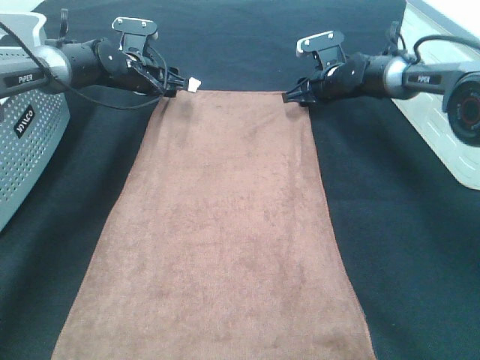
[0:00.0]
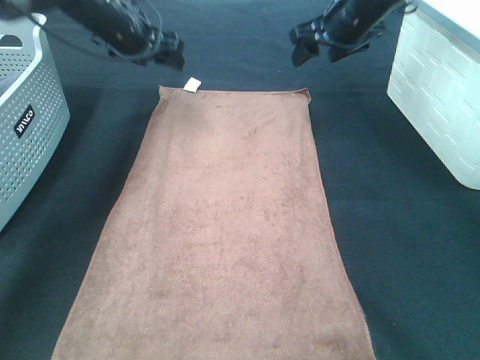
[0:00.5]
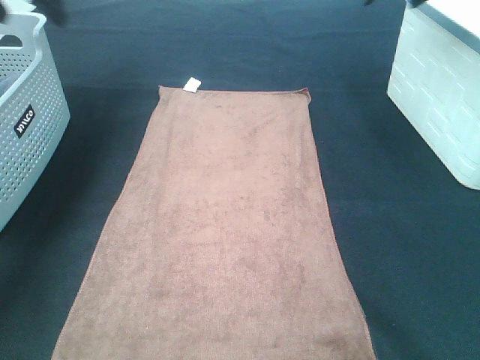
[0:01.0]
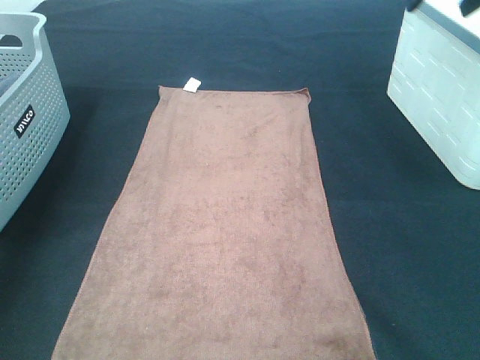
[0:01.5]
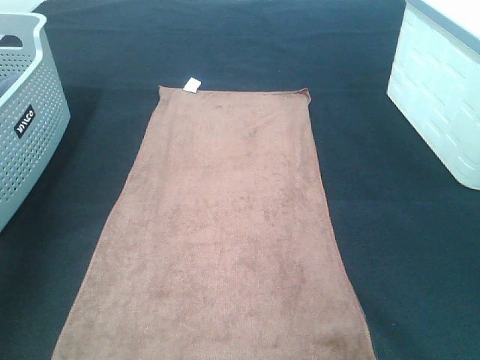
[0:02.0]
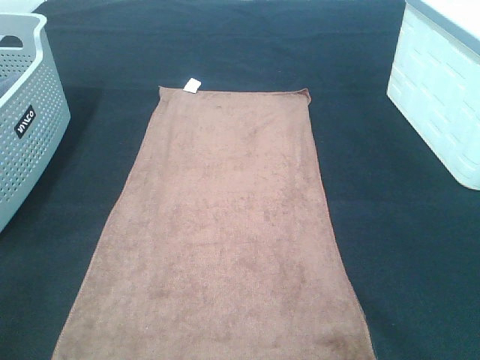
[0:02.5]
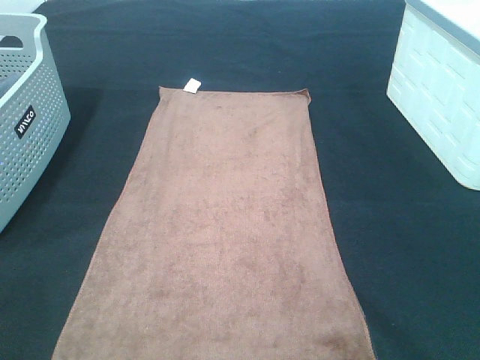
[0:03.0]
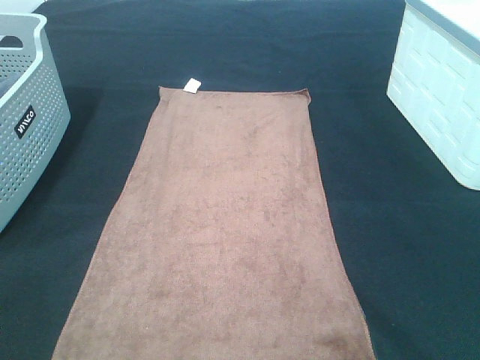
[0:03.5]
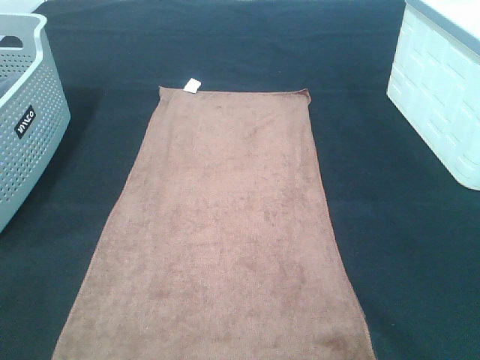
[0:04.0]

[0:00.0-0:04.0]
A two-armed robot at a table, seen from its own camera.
Task of the whole recording: Remove the towel and place it.
0:00.0 to 0:02.0: The two grippers go approximately 50 cm backward and upward.
0:02.0 to 0:04.0: The left gripper is displaced backward and downward by roughly 20 cm.

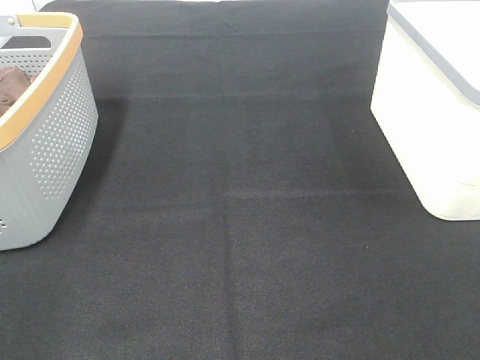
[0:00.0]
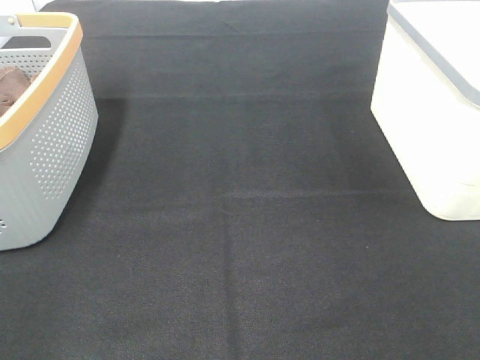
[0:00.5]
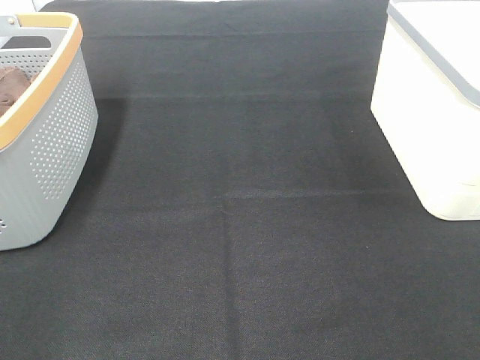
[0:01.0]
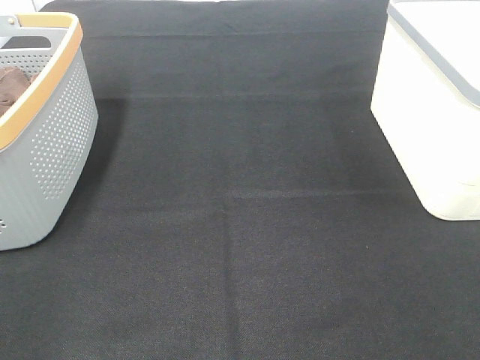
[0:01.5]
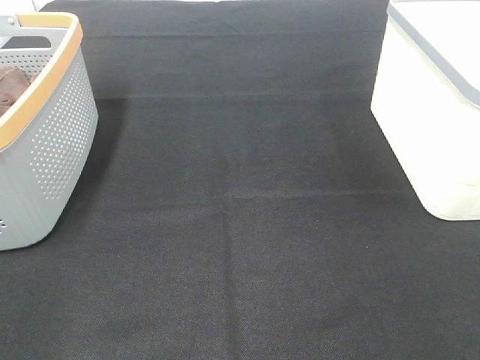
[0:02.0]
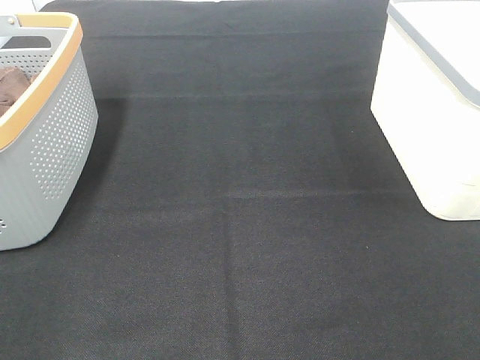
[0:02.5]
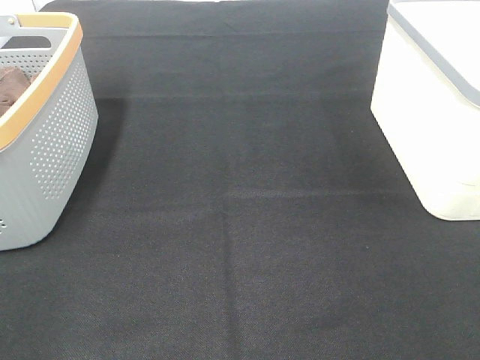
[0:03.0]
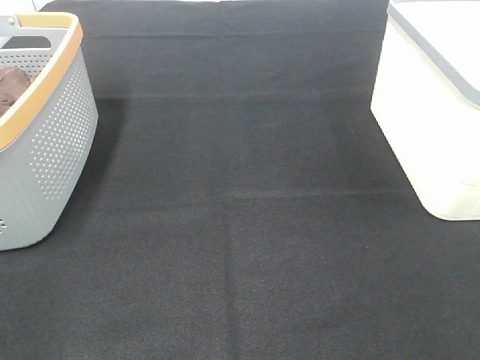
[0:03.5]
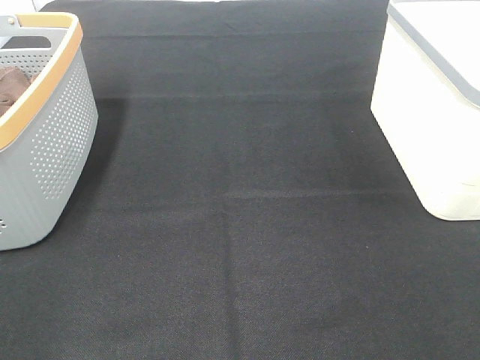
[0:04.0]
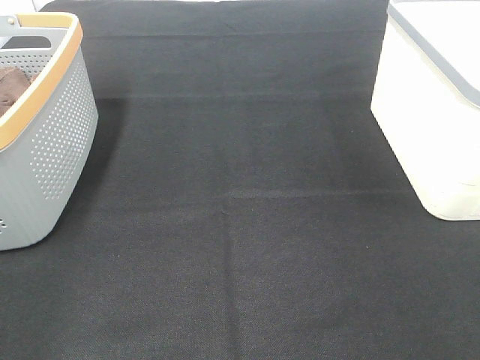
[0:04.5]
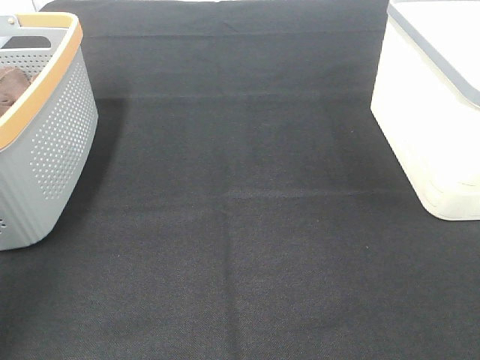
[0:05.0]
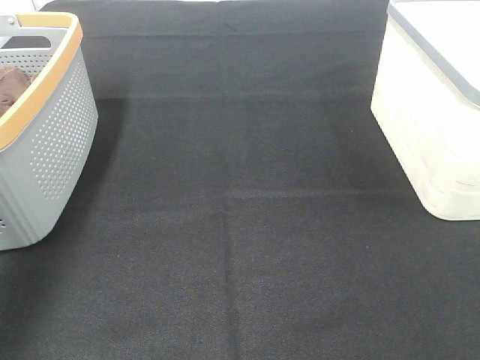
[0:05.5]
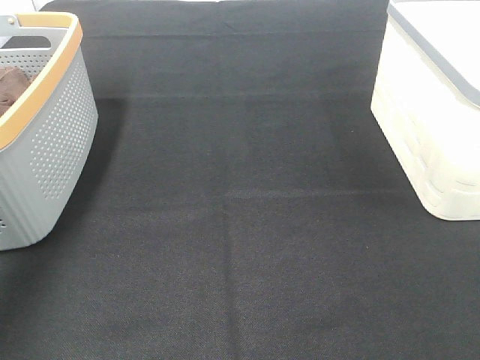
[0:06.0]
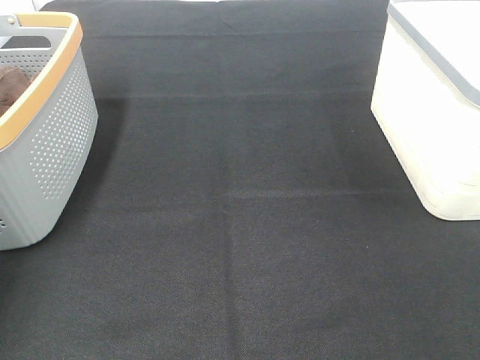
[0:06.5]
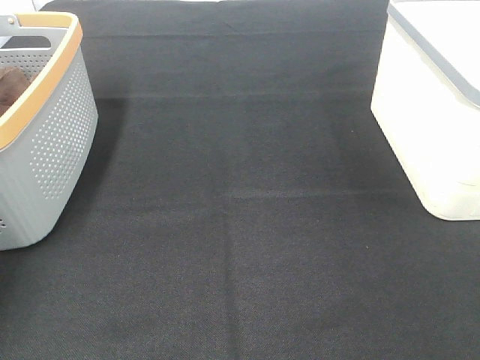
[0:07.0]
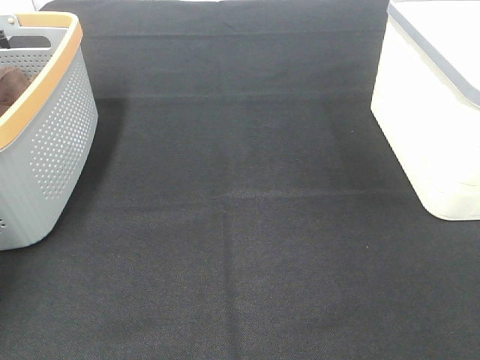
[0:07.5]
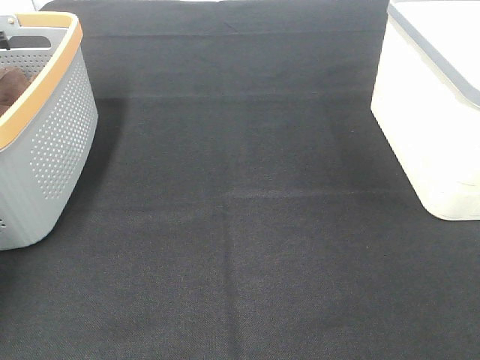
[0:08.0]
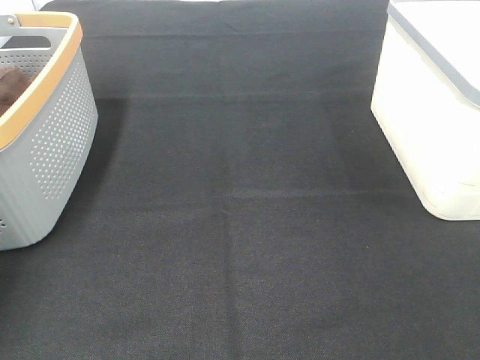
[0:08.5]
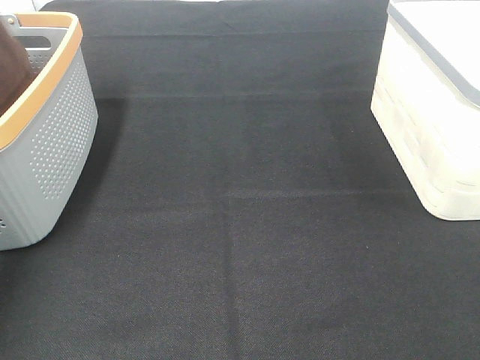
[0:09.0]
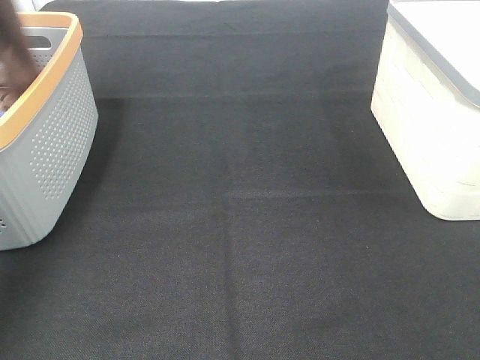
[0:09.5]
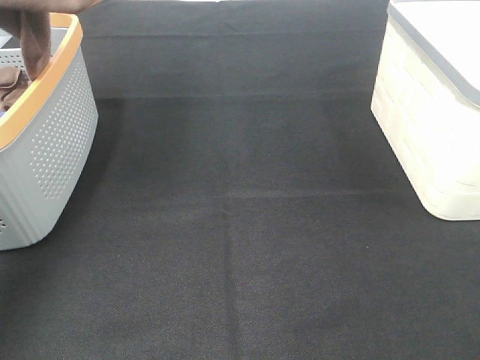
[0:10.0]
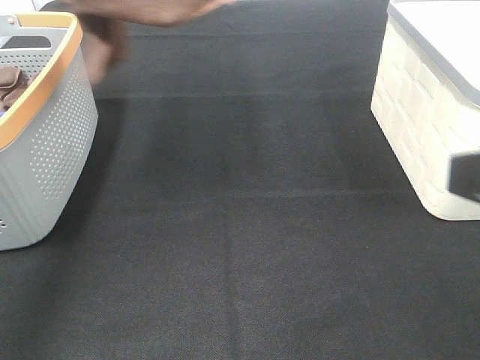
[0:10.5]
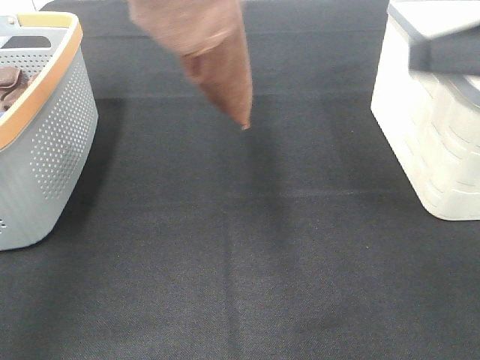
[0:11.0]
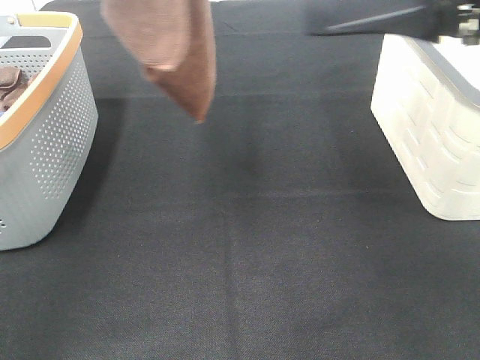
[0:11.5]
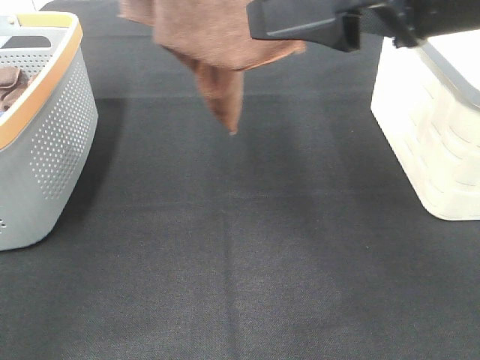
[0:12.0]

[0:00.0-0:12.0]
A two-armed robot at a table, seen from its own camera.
Task of the whole recording: Remove the towel and place it.
0:00.0 to 0:04.0: Both grippers stay about where they are.
0:04.0 to 0:06.0: The left gripper heads forward, covering approximately 40 cm.
0:06.0 to 0:08.0: The left gripper travels downward and forward by some 15 cm, and closes up.
0:08.0 to 0:10.0: The left gripper is displaced upward and backward by about 40 cm.
0:10.0 to 0:12.0: The left gripper shifts about 15 cm to the right. Meanwhile the right gripper goes about 20 cm forward and to the left.

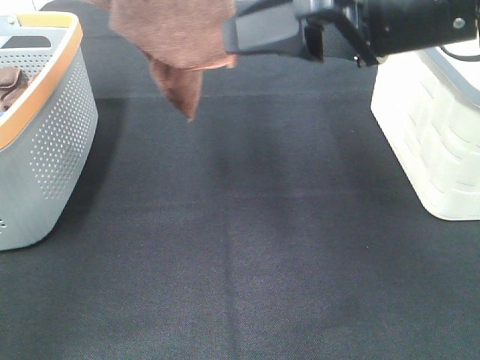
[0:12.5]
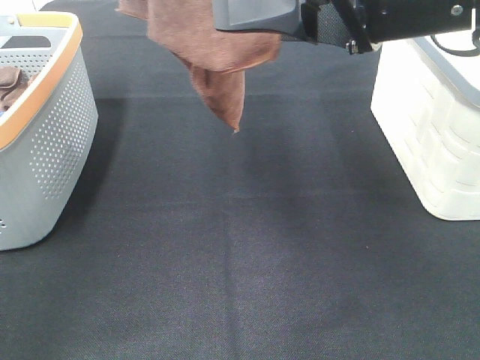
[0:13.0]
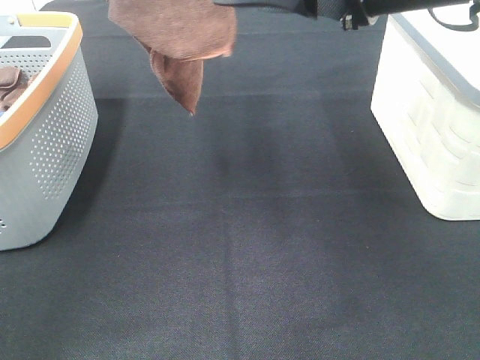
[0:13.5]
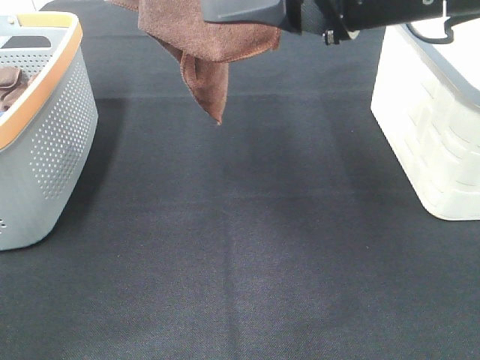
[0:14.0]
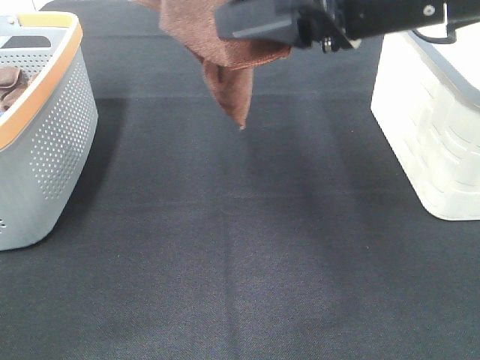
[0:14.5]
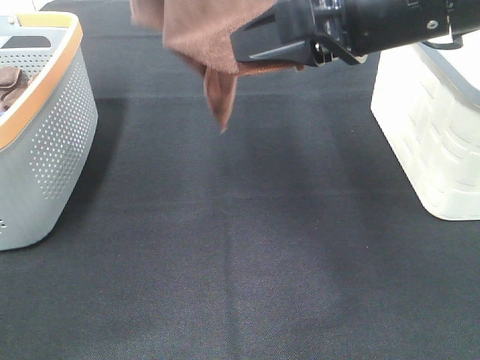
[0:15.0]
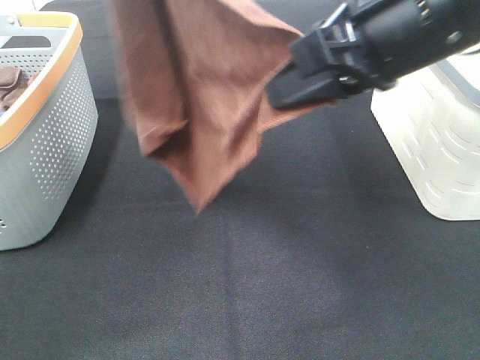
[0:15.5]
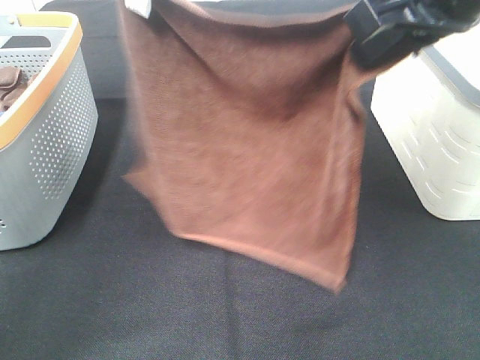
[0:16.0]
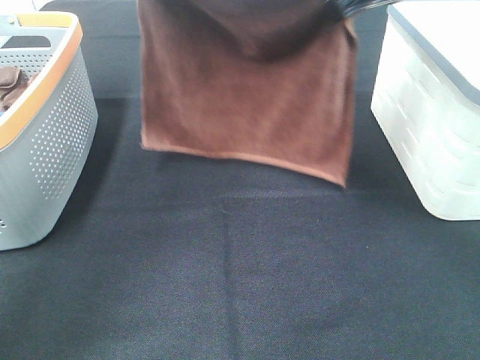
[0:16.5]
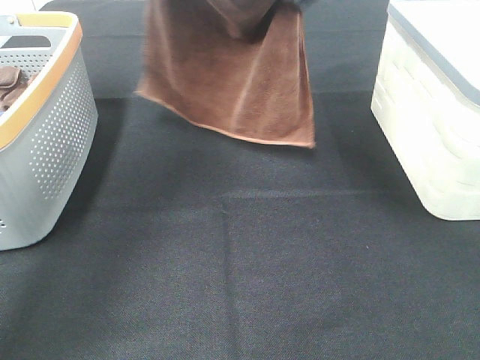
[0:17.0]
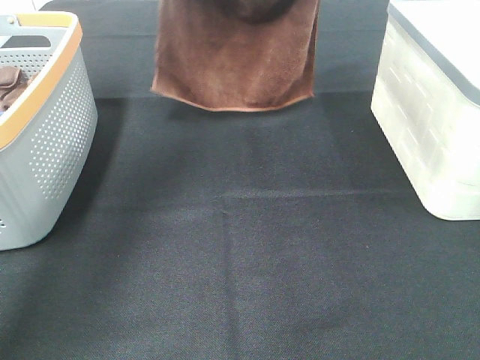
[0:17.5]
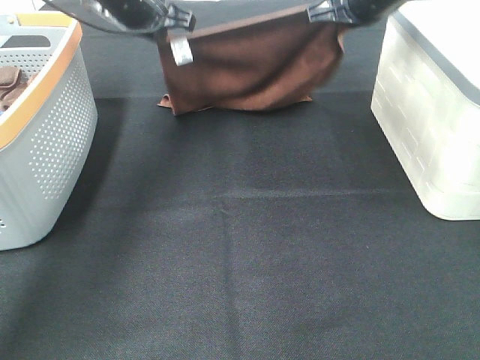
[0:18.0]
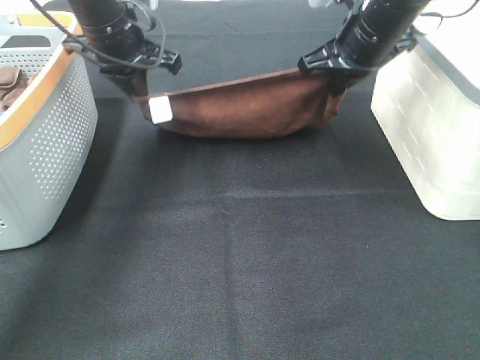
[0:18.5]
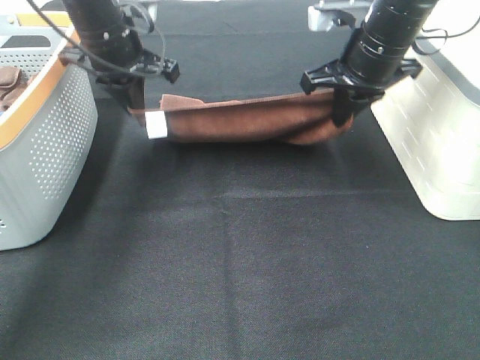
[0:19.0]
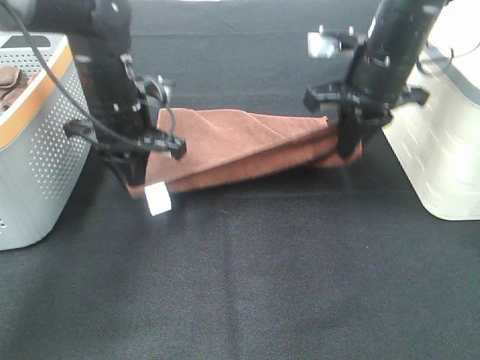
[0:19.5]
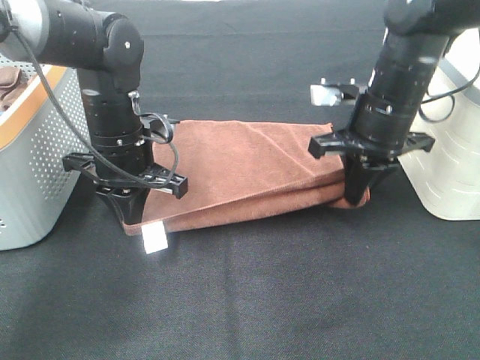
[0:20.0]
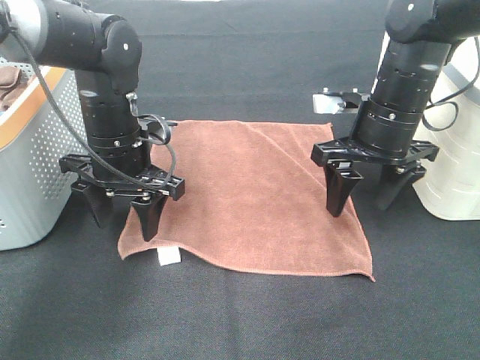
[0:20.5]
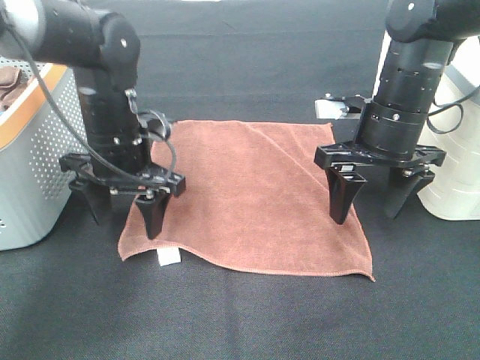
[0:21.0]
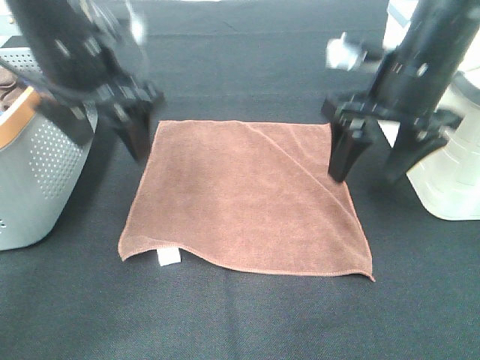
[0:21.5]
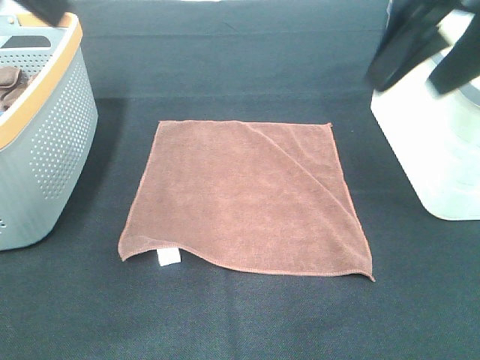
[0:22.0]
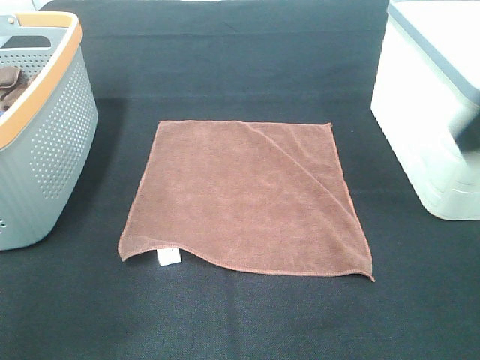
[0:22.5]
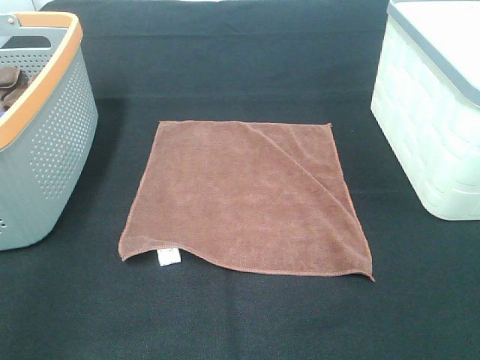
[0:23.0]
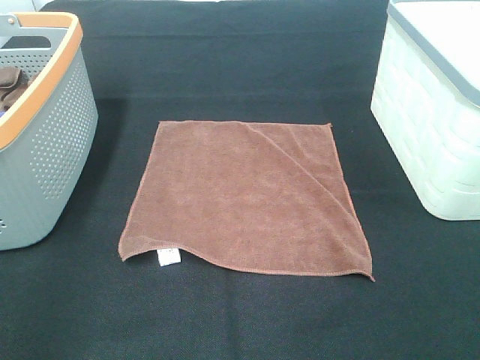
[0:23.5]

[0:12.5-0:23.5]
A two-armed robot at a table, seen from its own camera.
Task of the whole recording: Remove the towel and place it.
Step, 0:13.5 to 0:16.0: Left hand: spread the brown towel flat on the table.
Step, 0:13.5 to 0:16.0: Right hand: spread the brown towel flat on the table.
0:12.5 to 0:14.5: The right gripper closes up.
0:14.5 to 0:16.0: The right gripper ends up approximately 5 cm from where it was, and closes; the left gripper shifts about 15 cm downward and forward.
0:16.0 to 0:18.0: The left gripper is displaced downward and forward by some 20 cm, while the right gripper goes roughly 25 cm forward and downward.
0:18.0 to 0:20.0: The grippers both shift backward and downward by roughly 15 cm.
0:20.0 to 0:21.5: The left gripper shifts approximately 15 cm upward, and opens up, while the right gripper goes about 5 cm upward, and opens its fingers.
0:21.5 to 0:23.5: The right gripper is displaced backward by roughly 30 cm, while the left gripper moves backward and to the left, roughly 30 cm.
